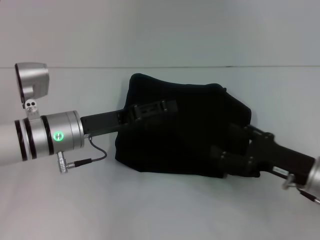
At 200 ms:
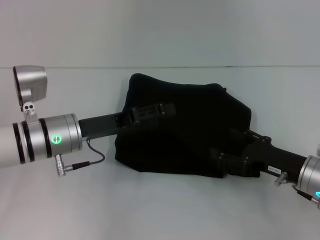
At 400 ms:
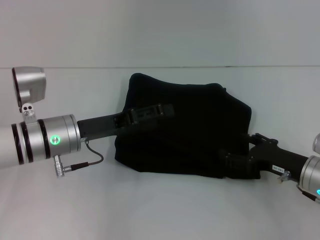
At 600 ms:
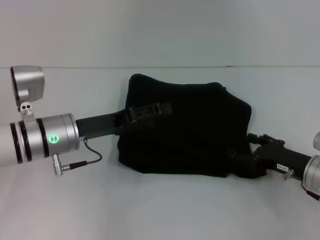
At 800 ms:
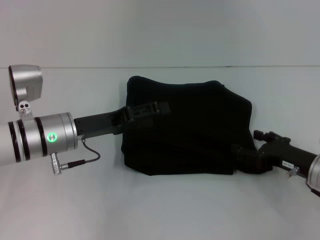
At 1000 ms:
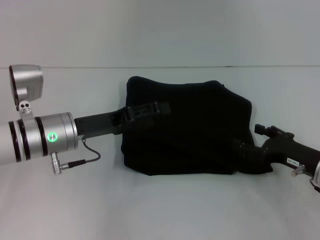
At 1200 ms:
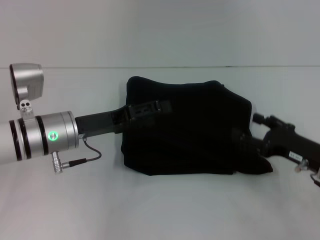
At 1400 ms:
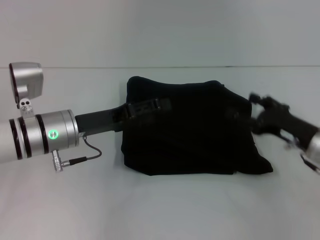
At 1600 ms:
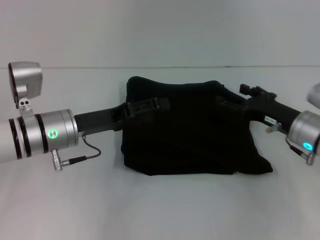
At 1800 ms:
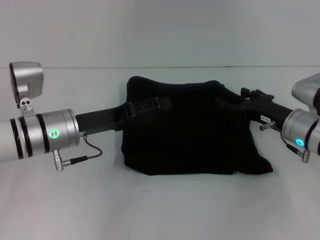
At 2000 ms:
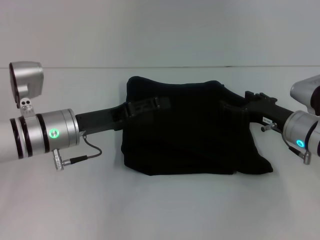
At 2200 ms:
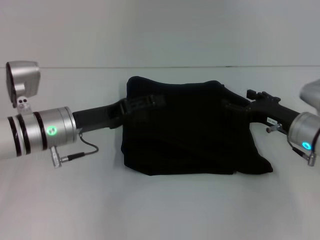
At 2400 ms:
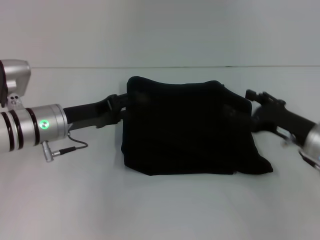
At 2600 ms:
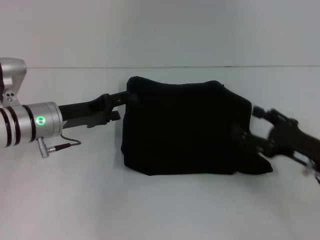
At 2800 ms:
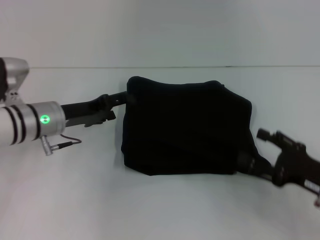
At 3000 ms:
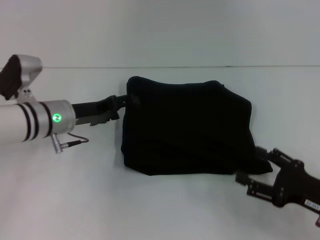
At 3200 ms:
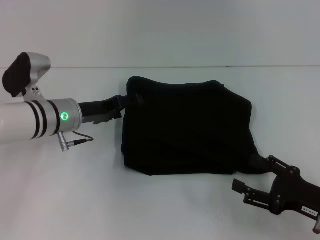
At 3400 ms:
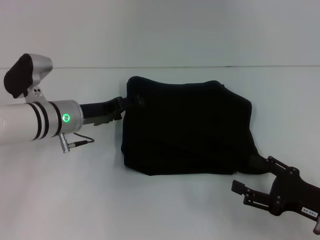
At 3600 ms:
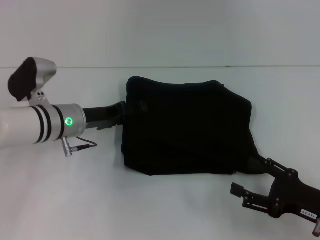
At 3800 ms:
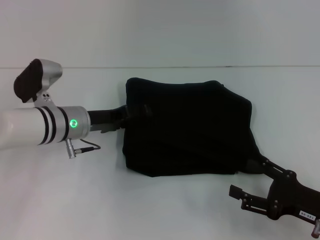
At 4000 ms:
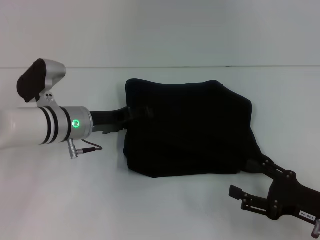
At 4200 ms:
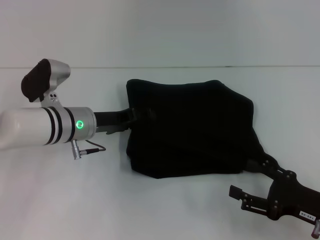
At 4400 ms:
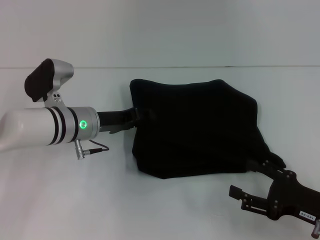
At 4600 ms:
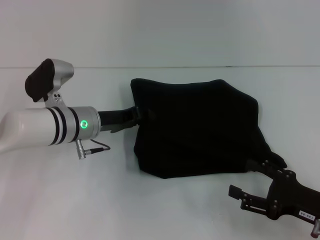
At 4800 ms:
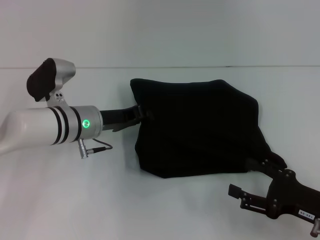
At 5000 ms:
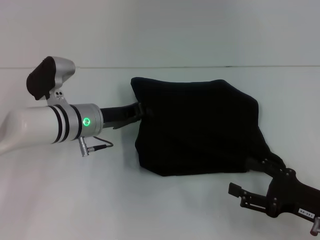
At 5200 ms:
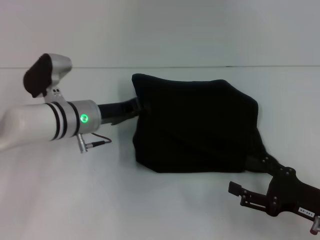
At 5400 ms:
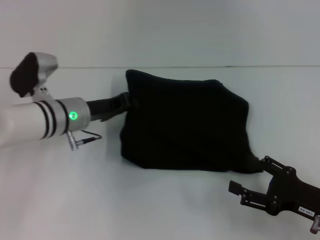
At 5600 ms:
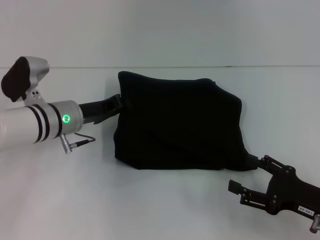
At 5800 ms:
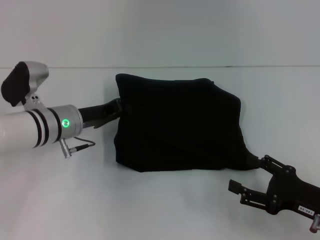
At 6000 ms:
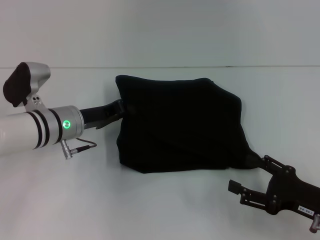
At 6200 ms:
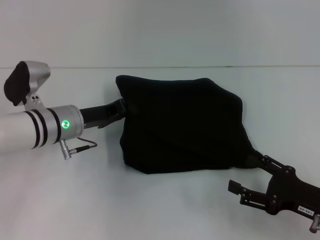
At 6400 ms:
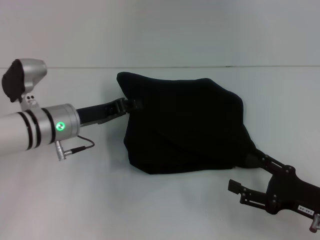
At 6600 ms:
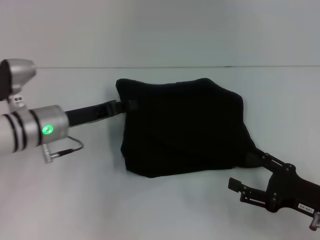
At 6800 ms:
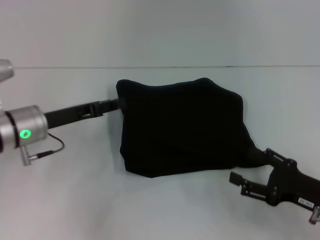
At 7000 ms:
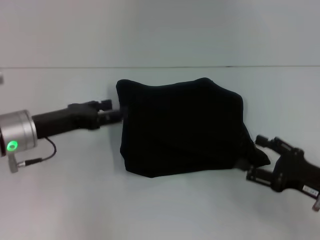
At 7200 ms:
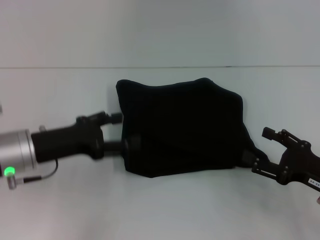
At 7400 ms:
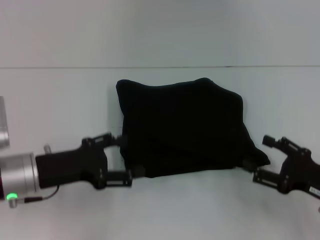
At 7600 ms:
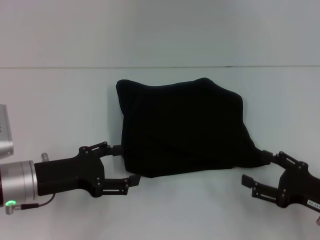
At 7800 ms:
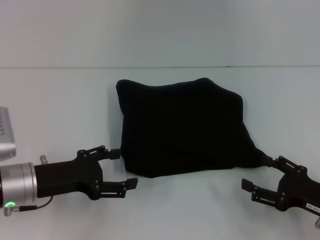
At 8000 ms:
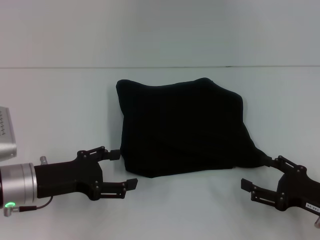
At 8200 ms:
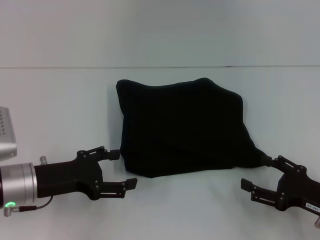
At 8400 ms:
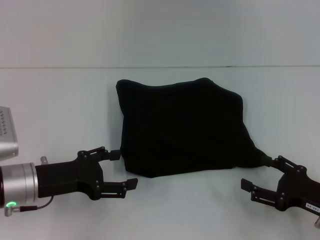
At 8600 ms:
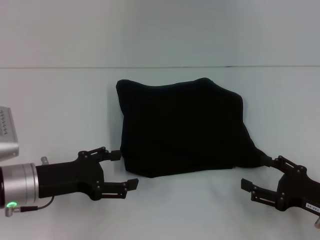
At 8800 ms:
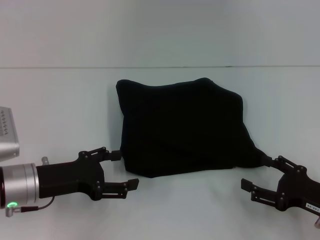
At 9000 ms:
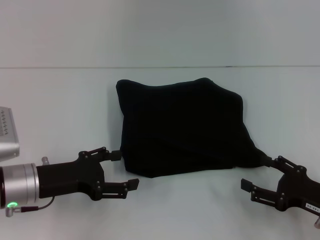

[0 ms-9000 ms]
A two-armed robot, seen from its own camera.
0 ms to 1600 ms: The right gripper heads forward, covering roughly 5 cm.
1600 ms to 3000 ms: The right gripper travels backward by about 10 cm.
3000 ms to 4400 ms: The left gripper closes up.
4400 ms to 6000 ms: The left gripper closes up.
6000 ms to 7600 ms: The left gripper goes some 10 cm backward, and opens.
7600 ms to 9000 ms: The two grippers keep their place.
